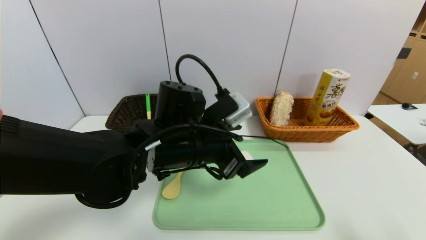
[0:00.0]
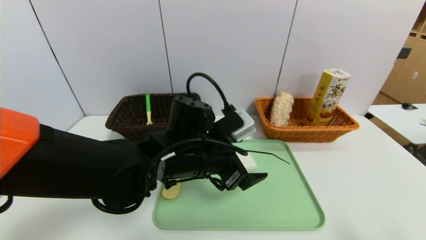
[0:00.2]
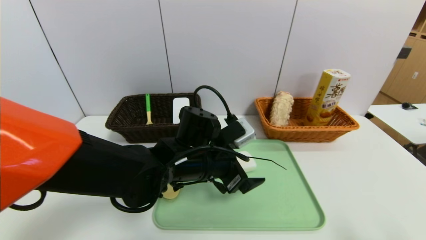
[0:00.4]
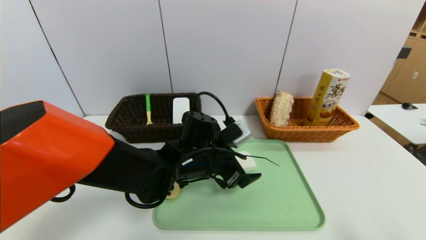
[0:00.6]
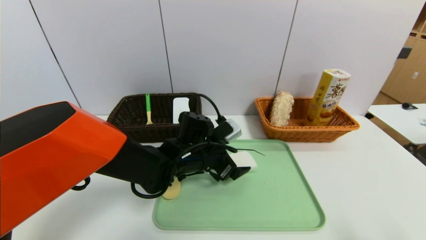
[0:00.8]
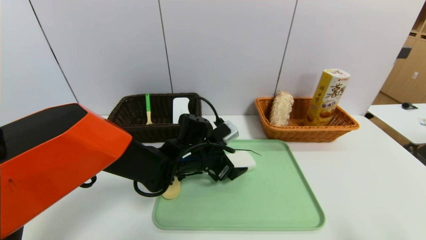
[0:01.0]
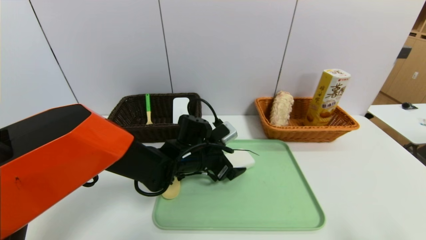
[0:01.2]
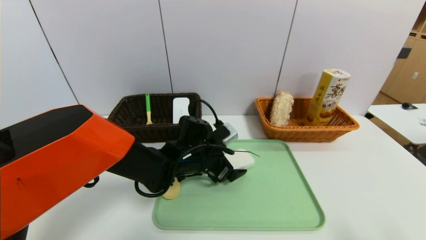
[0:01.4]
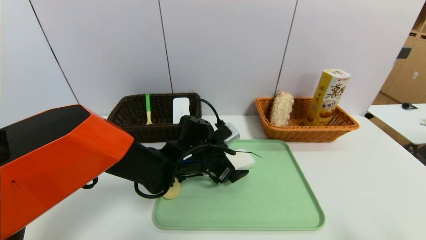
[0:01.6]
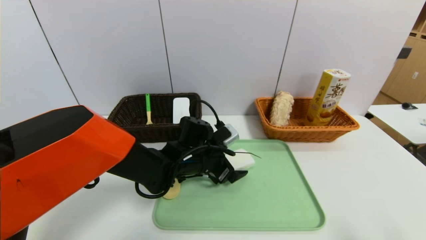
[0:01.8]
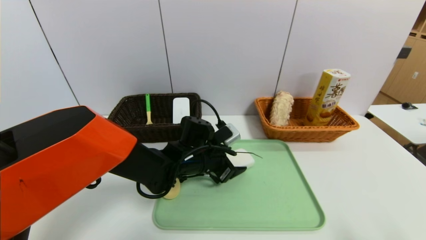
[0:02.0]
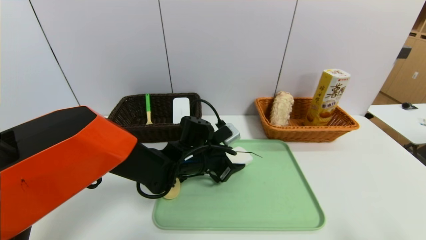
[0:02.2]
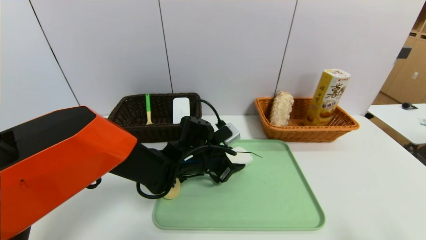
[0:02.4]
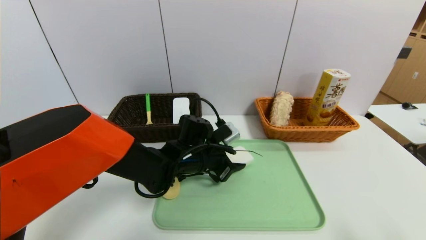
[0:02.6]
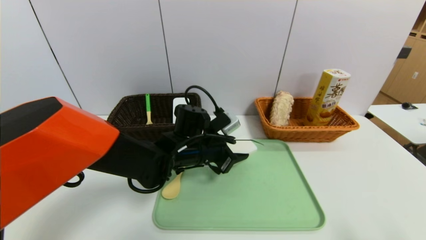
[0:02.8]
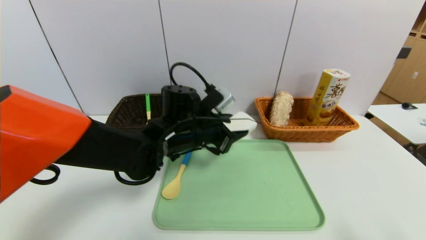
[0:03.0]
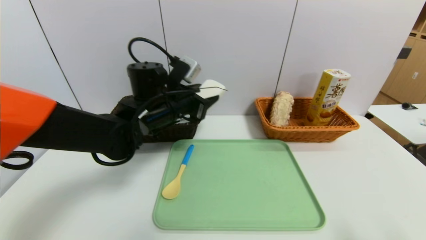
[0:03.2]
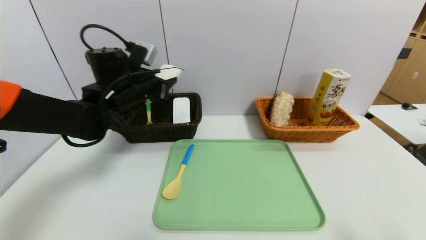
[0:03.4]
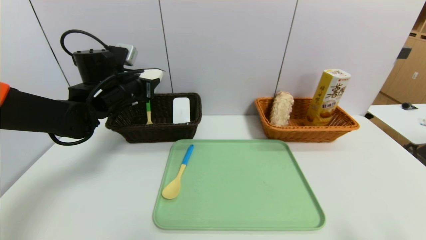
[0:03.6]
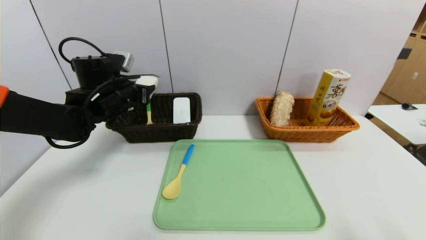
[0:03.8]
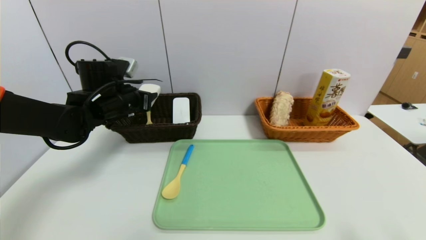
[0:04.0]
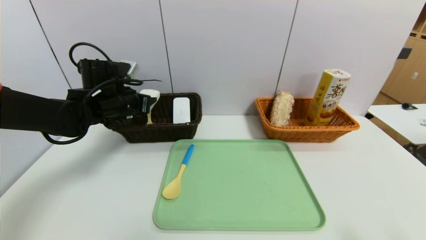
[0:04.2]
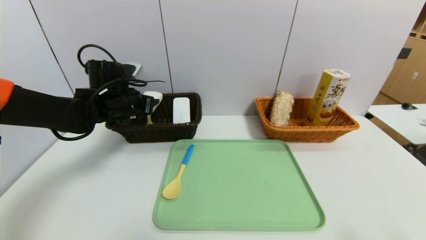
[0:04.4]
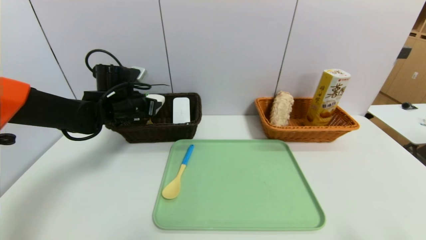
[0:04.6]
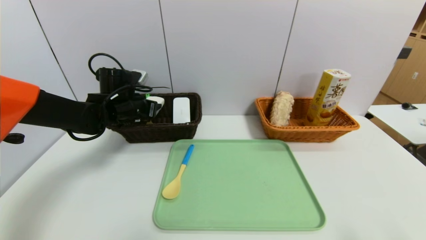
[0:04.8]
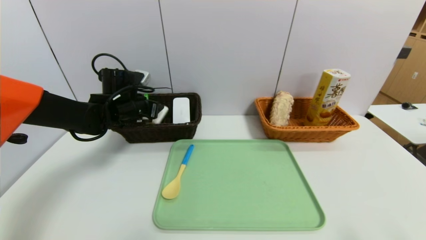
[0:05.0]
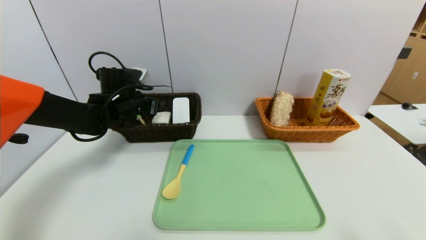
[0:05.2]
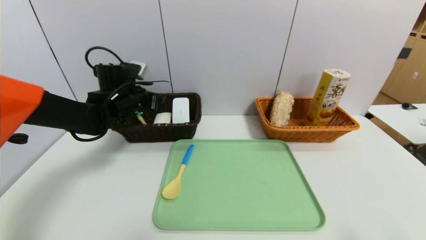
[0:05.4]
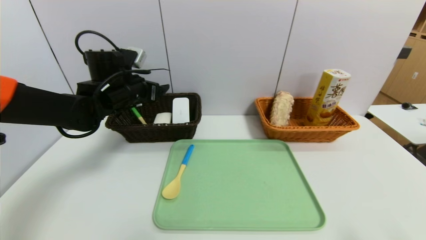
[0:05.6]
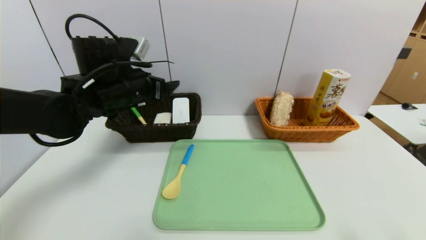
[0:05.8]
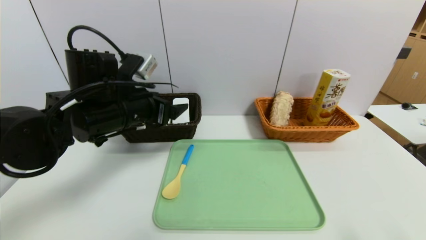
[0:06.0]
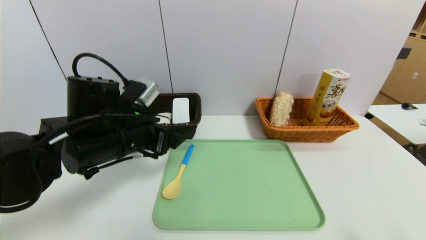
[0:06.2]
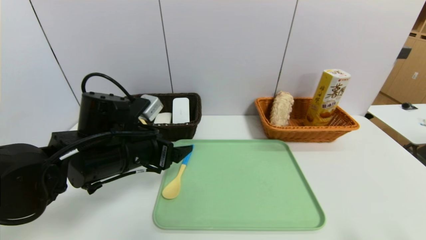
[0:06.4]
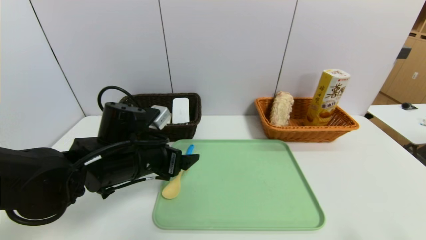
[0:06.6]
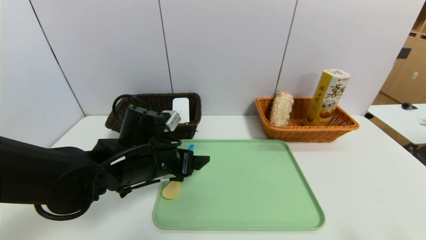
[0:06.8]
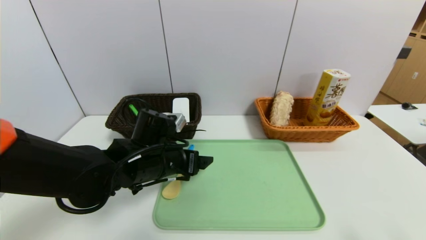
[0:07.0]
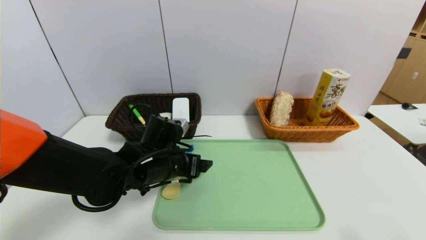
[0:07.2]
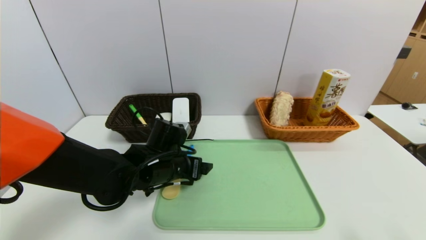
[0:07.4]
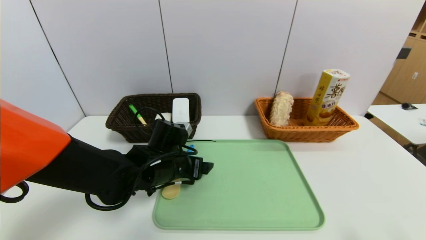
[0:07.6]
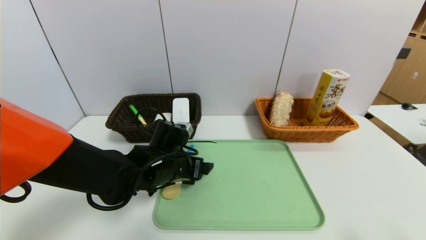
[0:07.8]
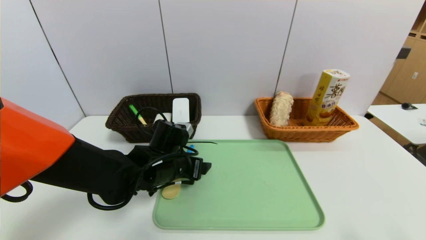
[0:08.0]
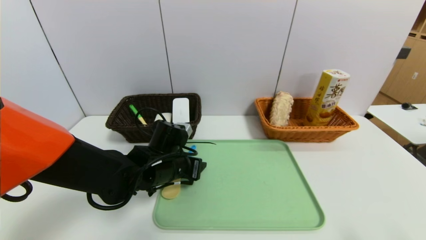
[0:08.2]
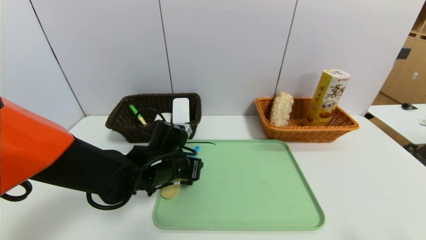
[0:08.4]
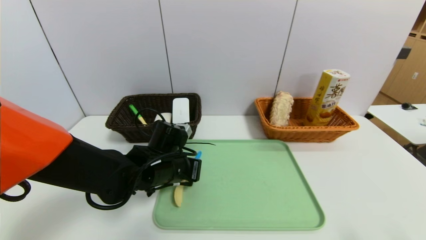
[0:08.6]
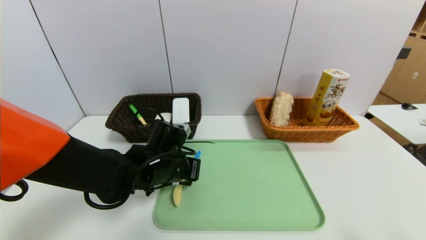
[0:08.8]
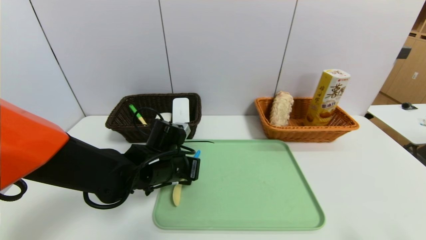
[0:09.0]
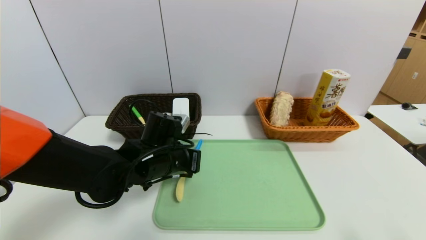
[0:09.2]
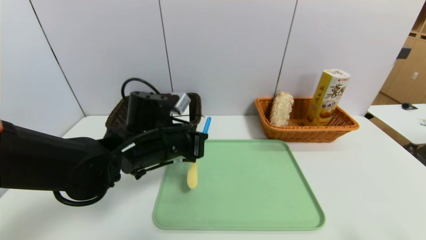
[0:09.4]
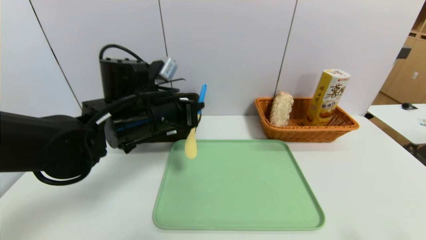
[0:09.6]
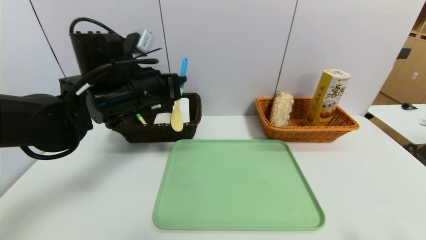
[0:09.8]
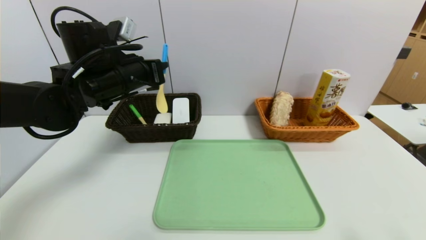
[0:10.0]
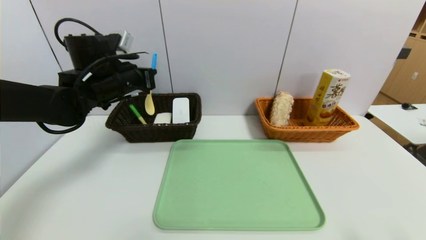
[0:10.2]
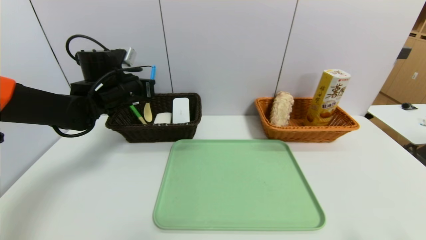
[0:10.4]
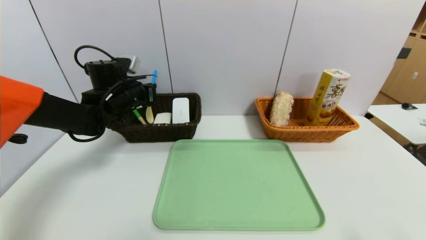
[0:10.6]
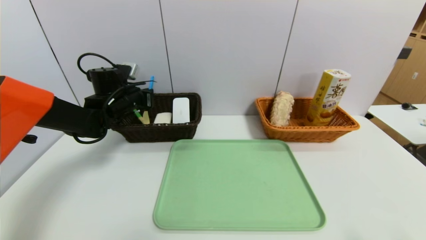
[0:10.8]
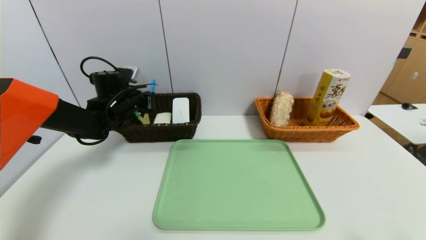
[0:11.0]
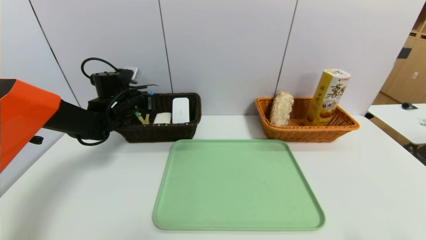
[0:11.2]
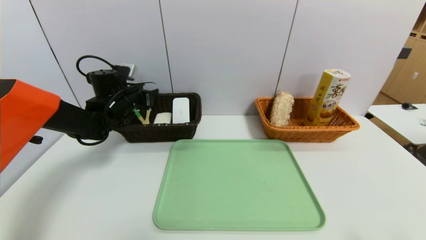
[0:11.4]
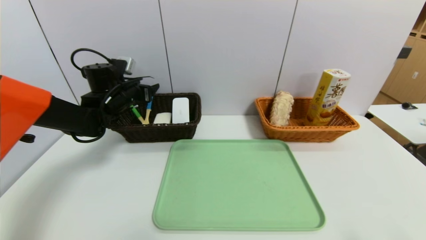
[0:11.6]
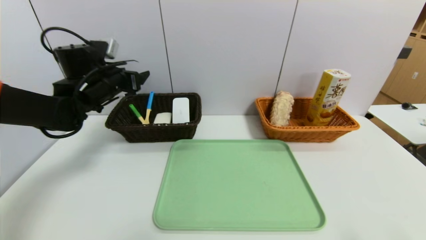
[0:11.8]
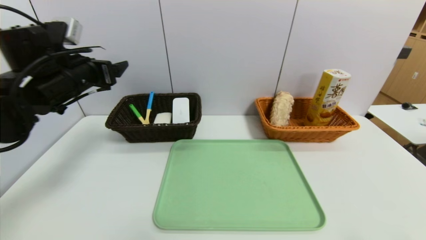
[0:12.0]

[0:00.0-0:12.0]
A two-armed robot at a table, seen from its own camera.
Task of the whole recording: place the food in the right basket with the right gripper, and place the non food items in the left basket with the left gripper.
Step, 0:00.0 to 0:05.2: Grasp the white eraser and put it in the left basket.
Step, 0:05.4 to 0:11.8: Grasp the spoon and put it in the left basket.
0:00.0 to 0:01.6: The left gripper is displaced downward and forward by approximately 10 cm.
0:01.6 to 0:03.0: The left gripper moves upward, about 10 cm, and closes.
0:03.0 to 0:04.4: The left gripper shifts approximately 20 cm to the left and forward.
0:04.4 to 0:06.0: The left gripper is displaced backward and to the right by approximately 10 cm, and opens up.
0:06.0 to 0:07.6: The left gripper travels downward and to the right by some 15 cm.
0:07.6 to 0:09.0: The left gripper closes up.
0:09.0 to 0:10.4: The left gripper heads to the left, upward and forward, covering roughly 20 cm.
0:10.4 to 0:12.0: The left gripper shifts some 10 cm backward and upward, and opens its fingers.

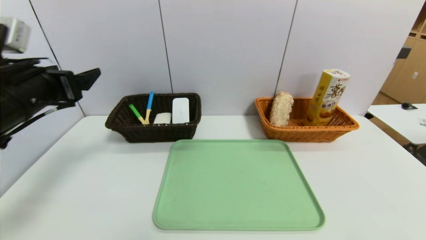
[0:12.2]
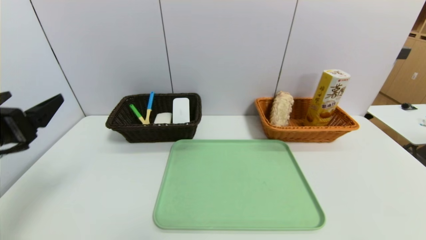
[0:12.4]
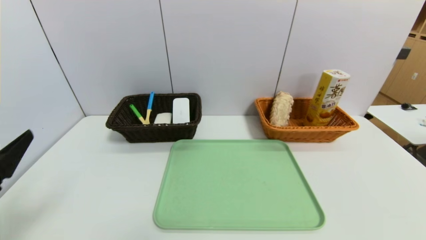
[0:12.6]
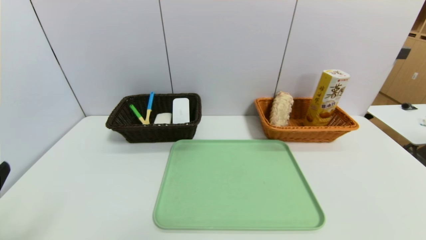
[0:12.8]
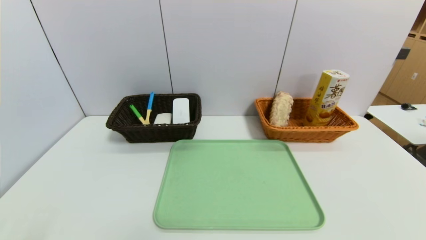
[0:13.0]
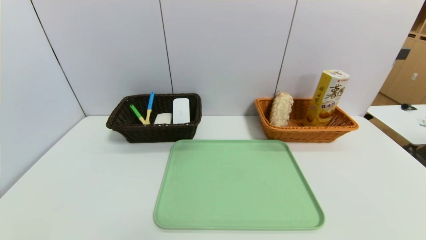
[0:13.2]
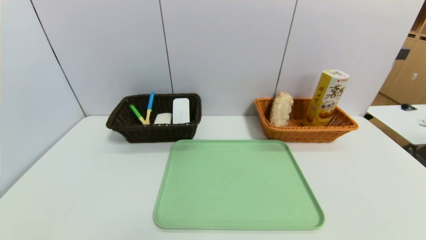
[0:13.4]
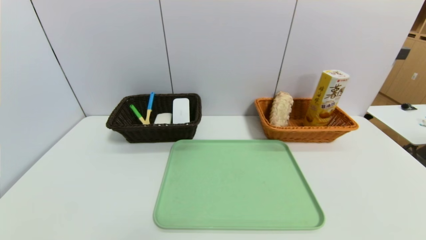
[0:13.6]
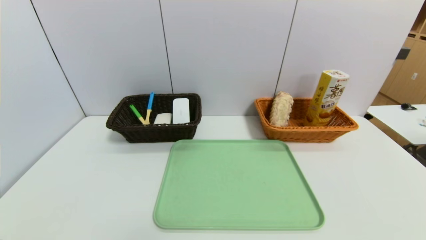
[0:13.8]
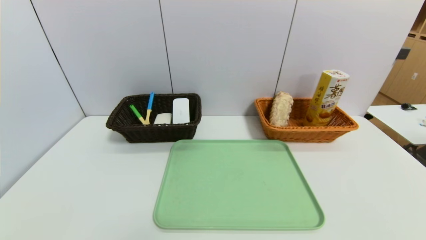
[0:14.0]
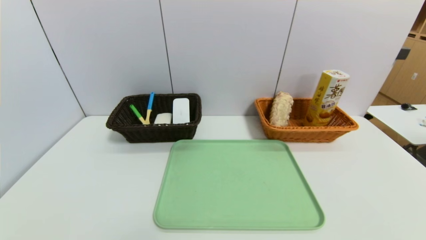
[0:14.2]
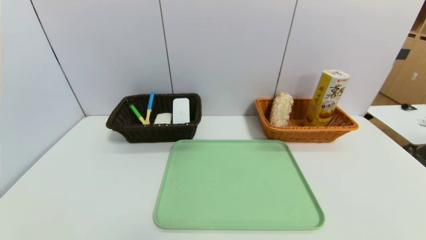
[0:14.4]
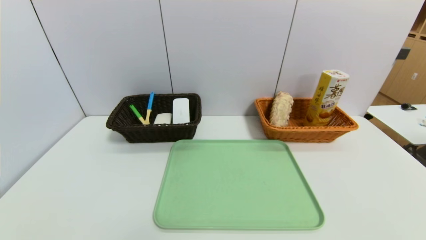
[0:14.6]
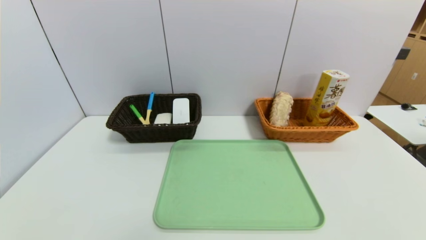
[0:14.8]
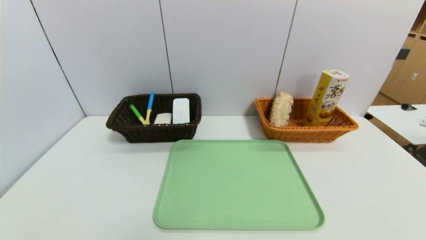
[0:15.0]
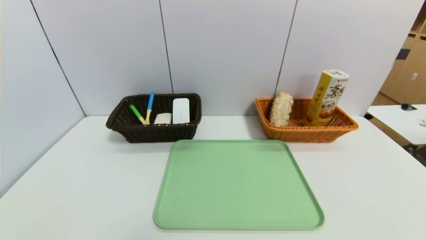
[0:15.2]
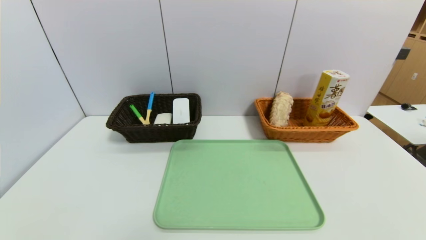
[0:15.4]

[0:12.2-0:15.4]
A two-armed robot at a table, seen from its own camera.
Task of the whole recording: place the food in the right basket with the right gripper, and place the non food items in the left basket with the left gripper.
0:12.2 to 0:13.8: The right gripper shifts roughly 5 cm downward. The left gripper goes approximately 30 cm backward and downward.

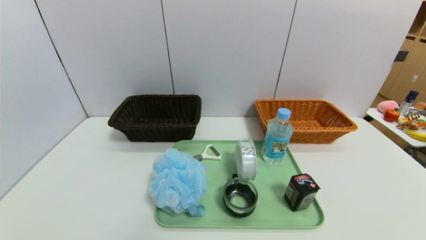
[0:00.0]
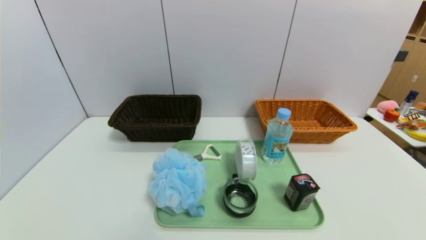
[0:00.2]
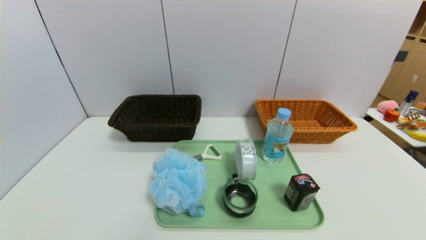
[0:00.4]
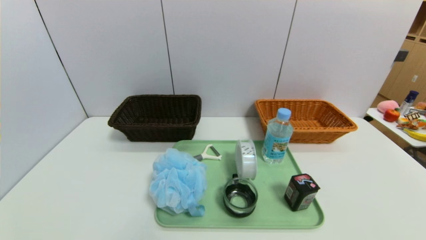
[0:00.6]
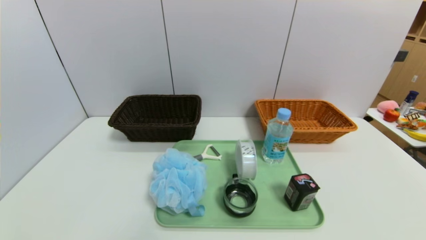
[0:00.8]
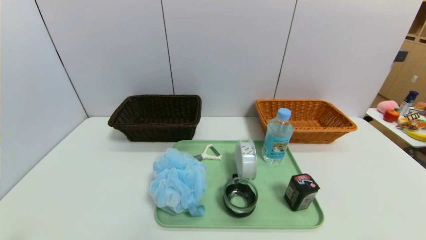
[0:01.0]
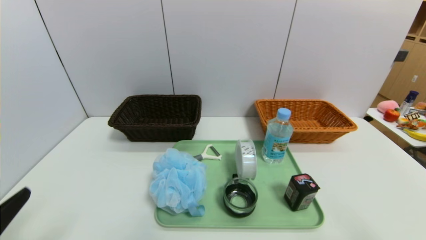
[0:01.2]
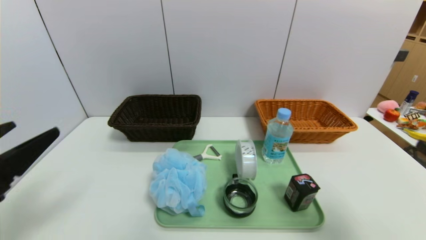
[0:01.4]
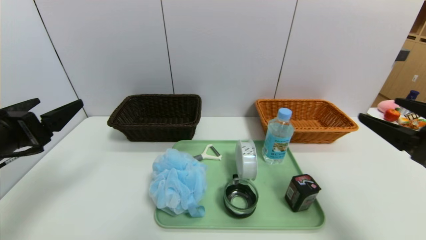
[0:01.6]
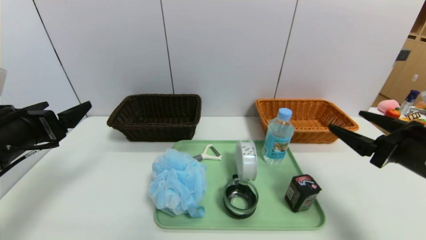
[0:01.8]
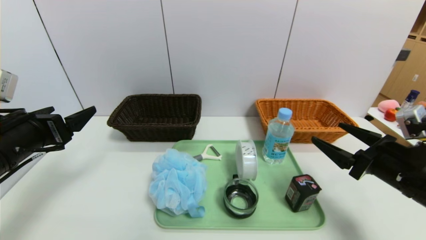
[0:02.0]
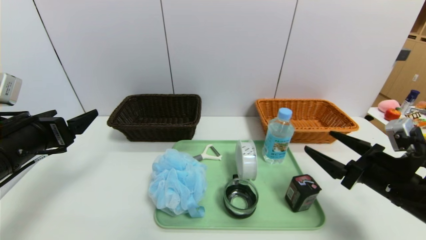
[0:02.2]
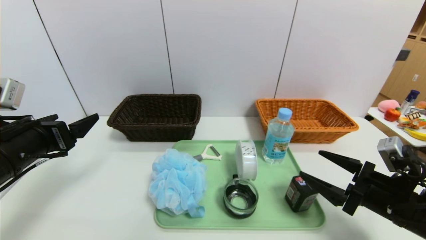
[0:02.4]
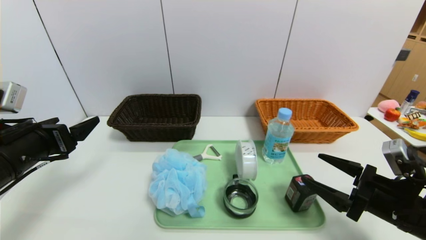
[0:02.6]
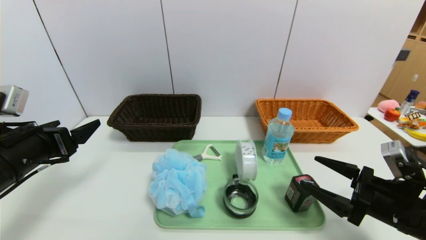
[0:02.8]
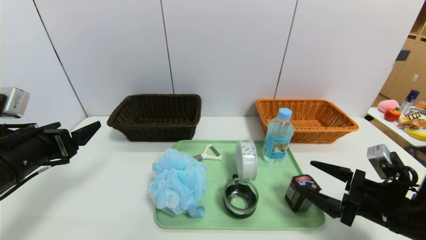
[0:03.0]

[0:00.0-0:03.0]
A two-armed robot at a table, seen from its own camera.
Task of the whole recording: place the food in the right basket with the right gripper, and place the non food items in the left basket with the left gripper.
0:00.0 to 0:01.6: The two grippers go roughly 25 cm forward and upward.
0:01.6 to 0:03.0: The right gripper is displaced downward by some 15 cm.
